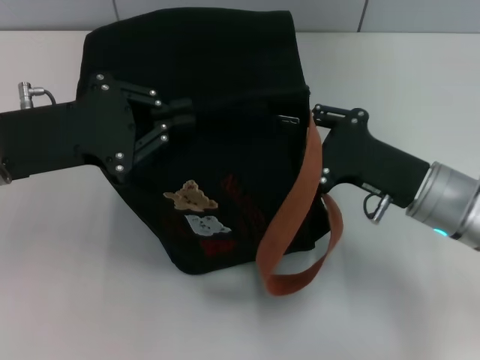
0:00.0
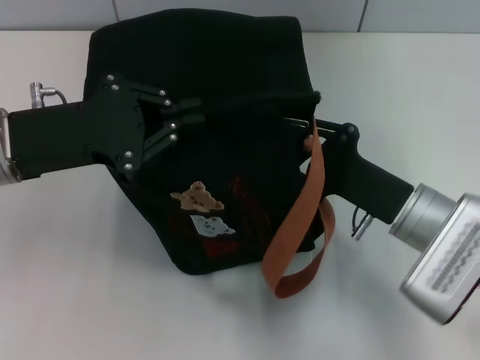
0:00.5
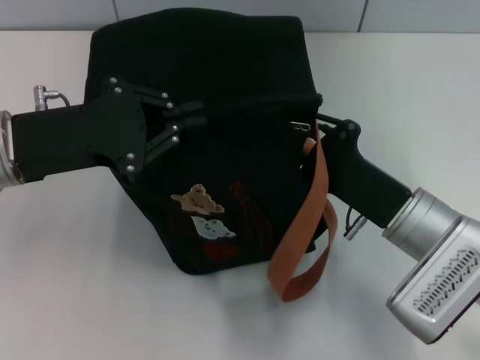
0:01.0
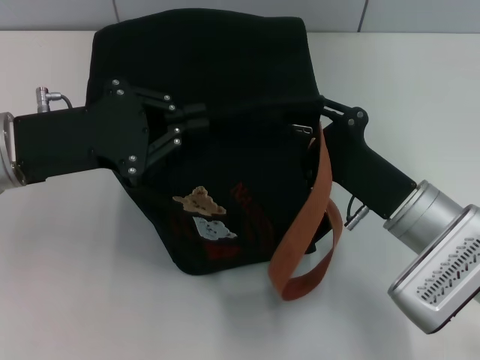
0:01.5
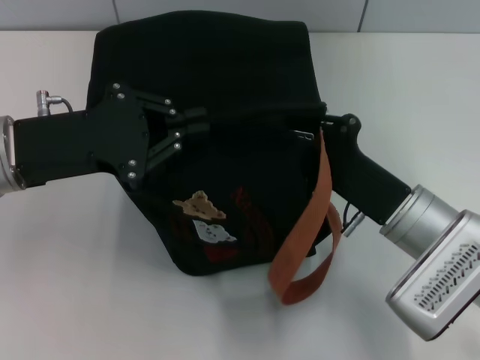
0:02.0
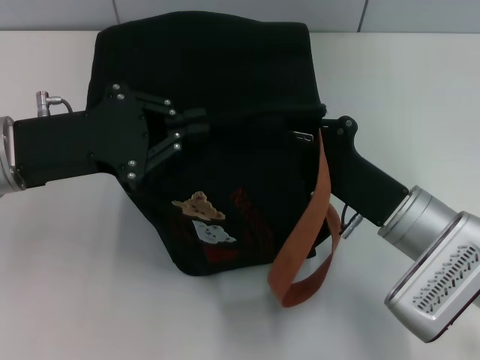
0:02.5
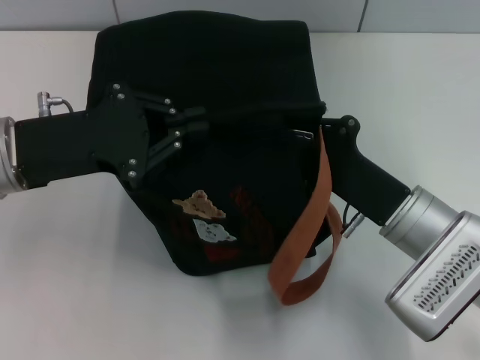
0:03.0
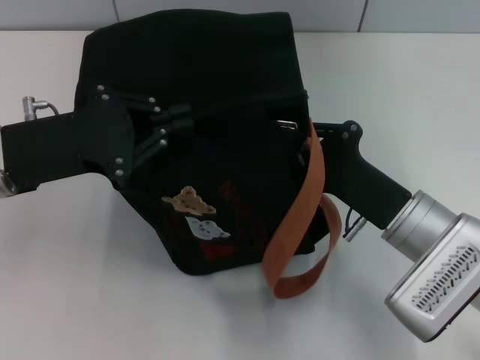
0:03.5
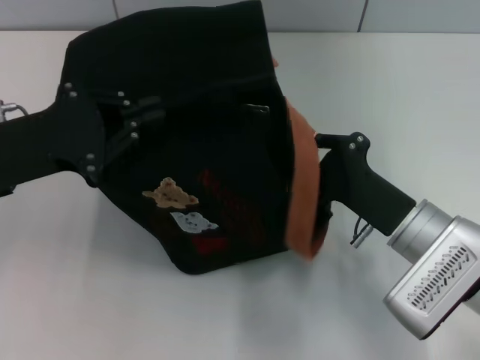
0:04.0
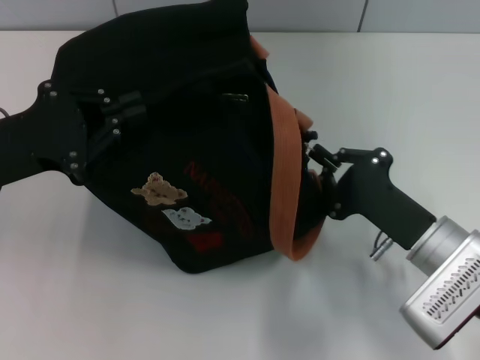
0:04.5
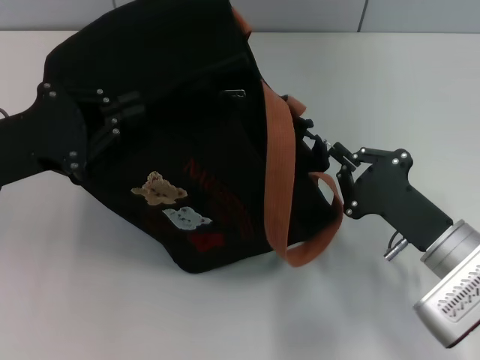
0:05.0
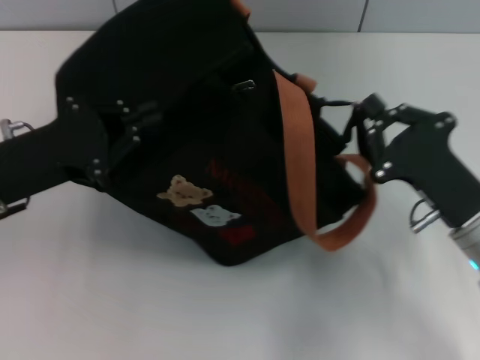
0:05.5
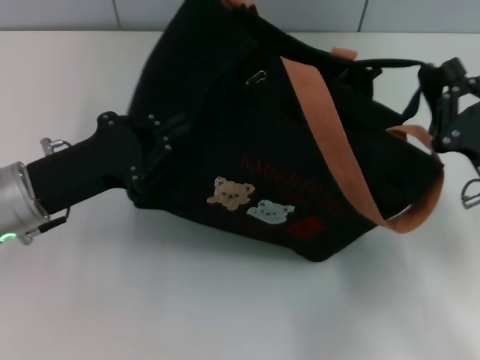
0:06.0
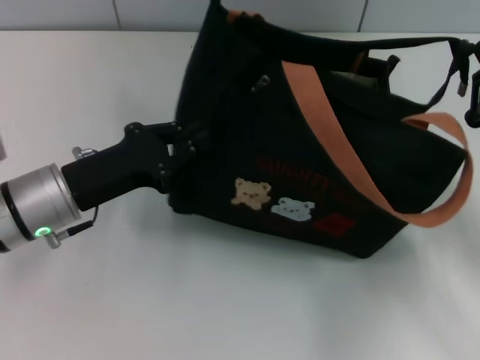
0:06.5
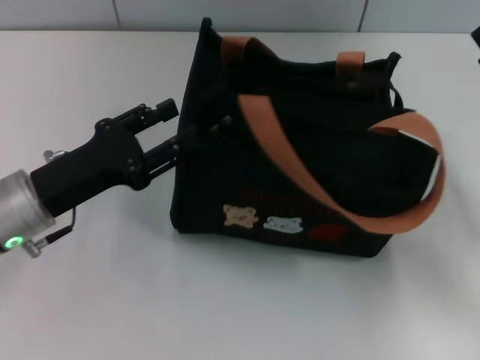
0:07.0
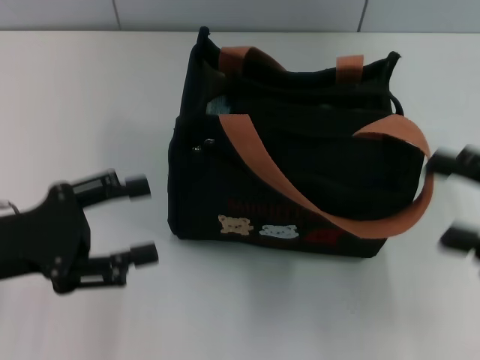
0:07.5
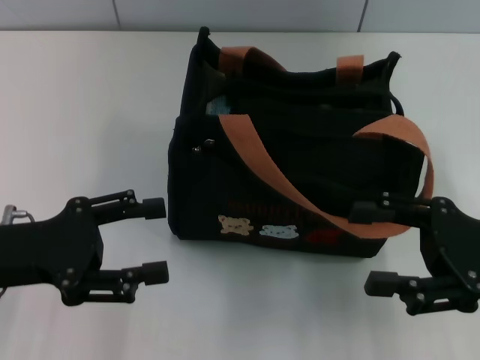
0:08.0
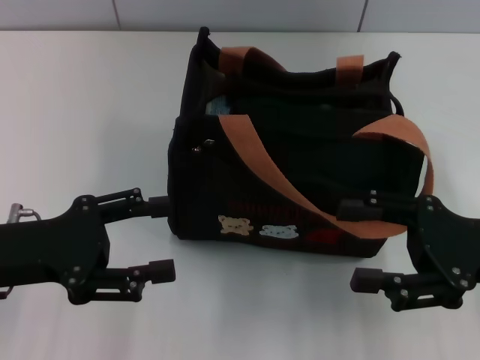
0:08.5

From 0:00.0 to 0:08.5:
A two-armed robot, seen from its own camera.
Step, from 0:00.0 to 0:06.5: Pull open the zipper with your right hand.
From 0:04.0 to 0:06.5: The left gripper heads downward, covering roughly 5 cm; the right gripper heads to the right, covering approximately 10 cm.
From 0:06.5 to 0:08.5: The left gripper heads backward and to the left, covering approximately 10 cm, and opens, while the right gripper opens.

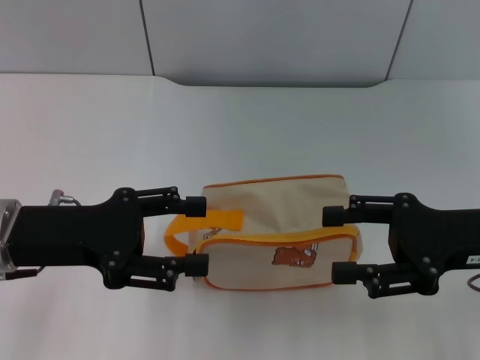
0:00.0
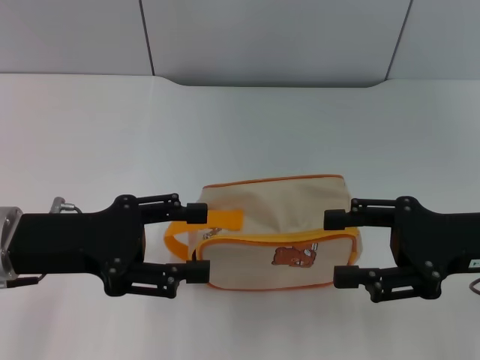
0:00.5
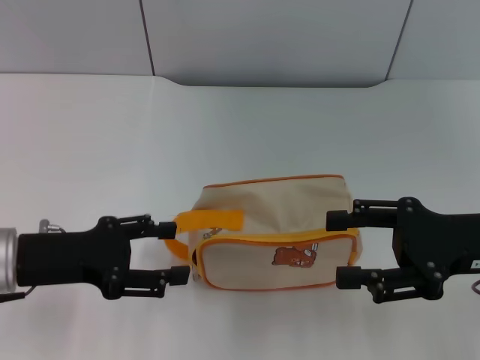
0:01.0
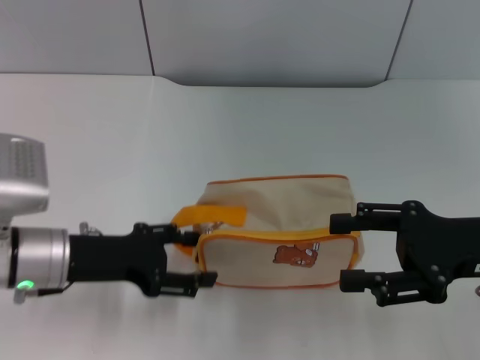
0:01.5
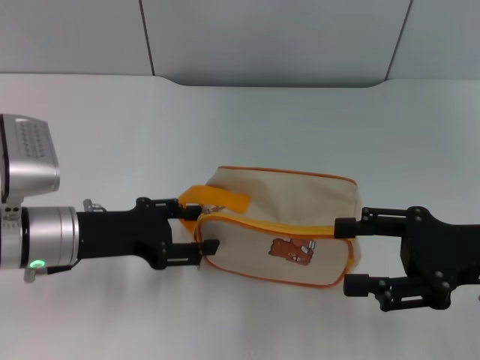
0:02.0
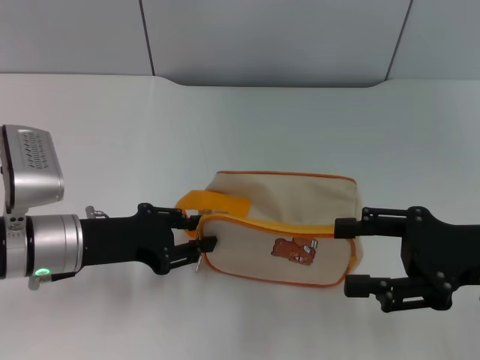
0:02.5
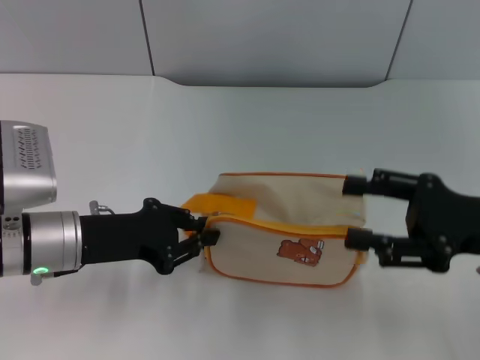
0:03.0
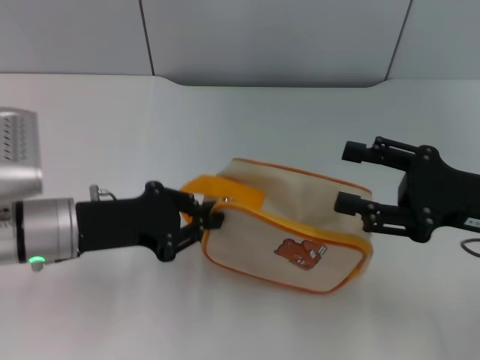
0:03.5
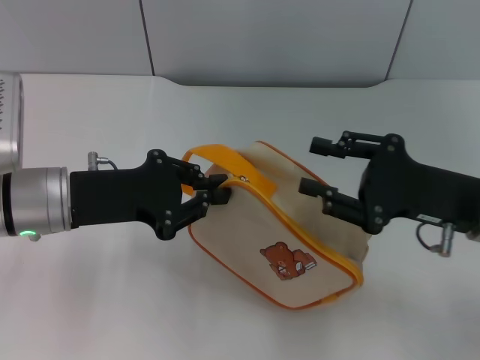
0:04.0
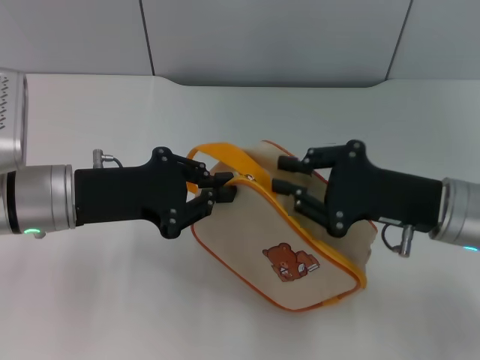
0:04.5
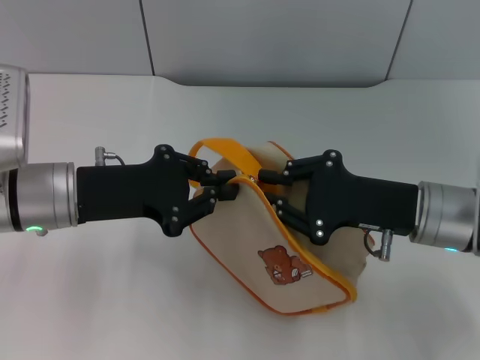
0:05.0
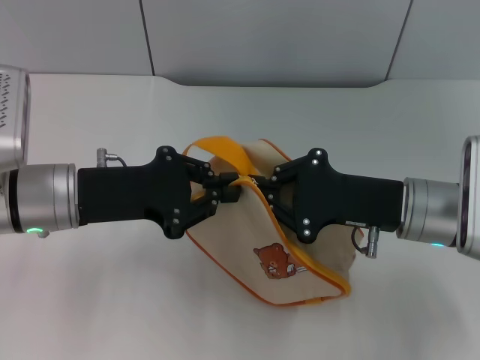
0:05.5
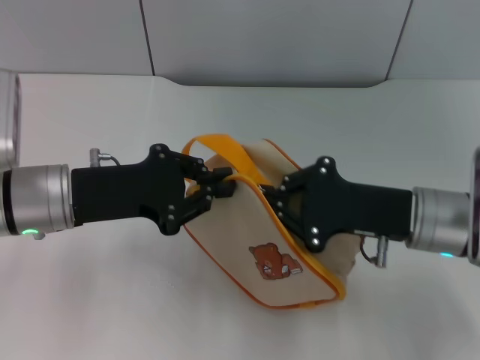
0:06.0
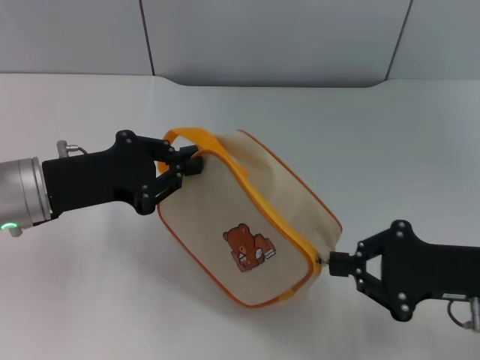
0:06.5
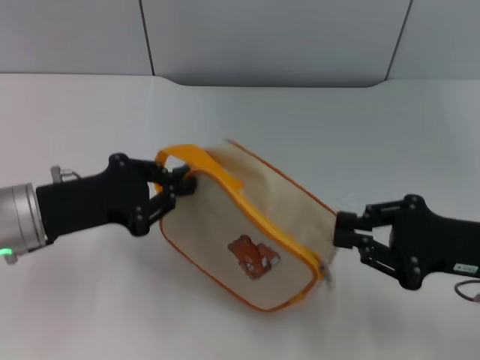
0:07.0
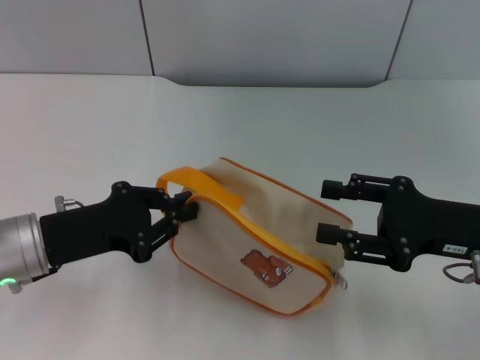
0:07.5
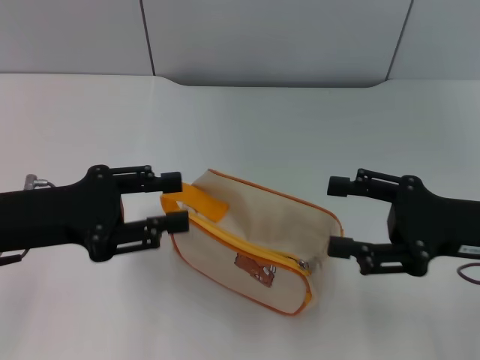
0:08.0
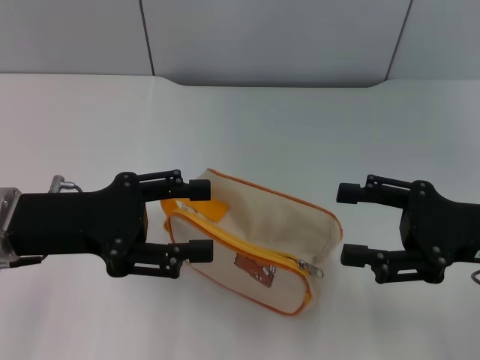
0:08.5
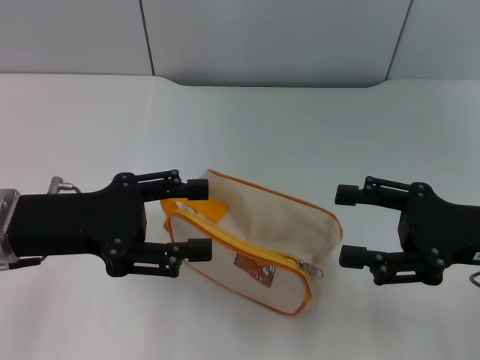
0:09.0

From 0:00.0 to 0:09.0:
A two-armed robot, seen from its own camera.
Step, from 0:00.0 to 0:03.5: Pick up the bag with left gripper.
Step, from 0:04.5 to 0:07.0: Unzip the zipper of bag with right gripper.
Step, from 0:07.5 to 0:08.0: Place the bag on the table with left gripper.
From 0:00.0 to 0:02.0: The left gripper is displaced downward by about 5 cm.
From 0:02.0 to 0:04.5: The left gripper closes. The right gripper is displaced to the left by about 5 cm, and closes up.
From 0:04.5 to 0:07.0: The right gripper shifts about 5 cm to the right.
From 0:07.0 to 0:09.0: The right gripper opens its fingers. Meanwhile the left gripper opens.

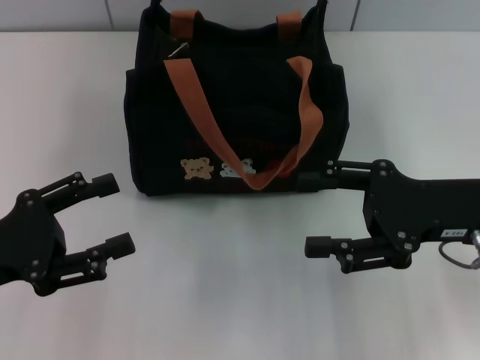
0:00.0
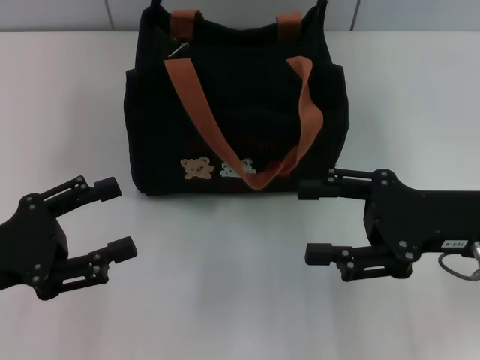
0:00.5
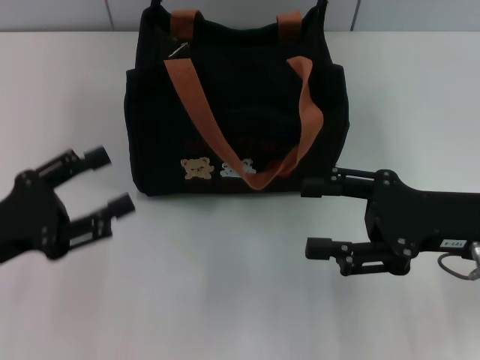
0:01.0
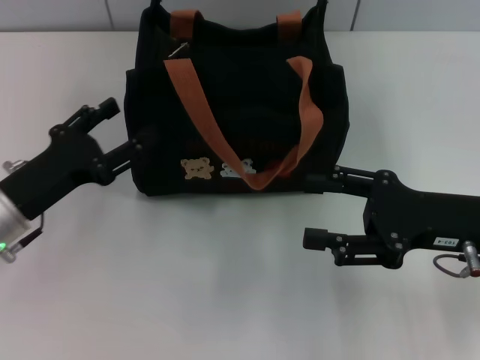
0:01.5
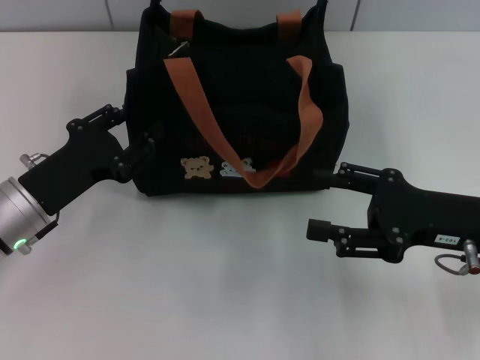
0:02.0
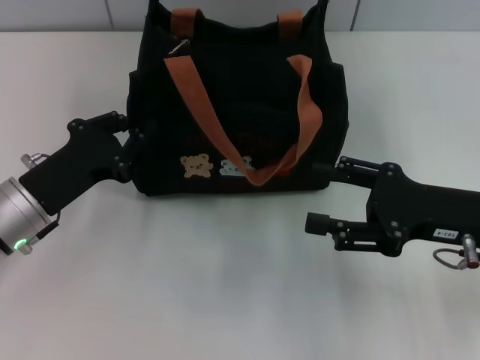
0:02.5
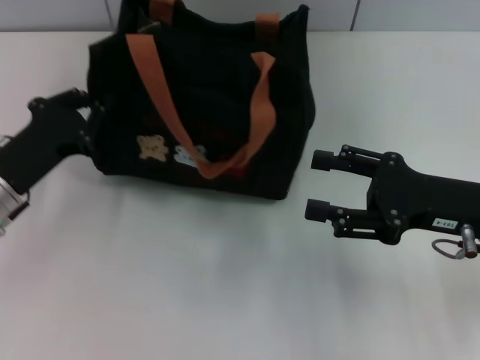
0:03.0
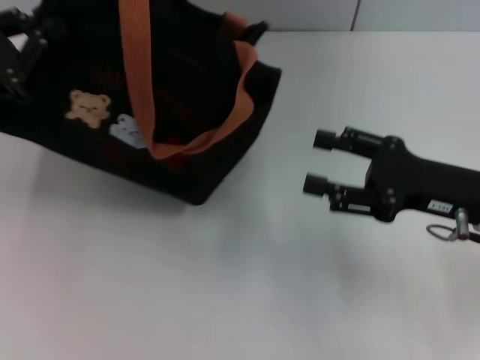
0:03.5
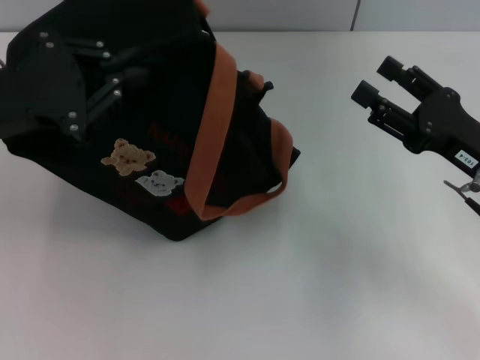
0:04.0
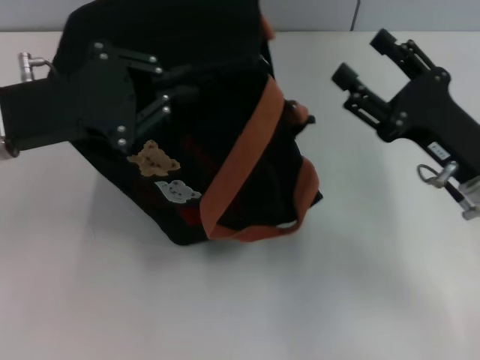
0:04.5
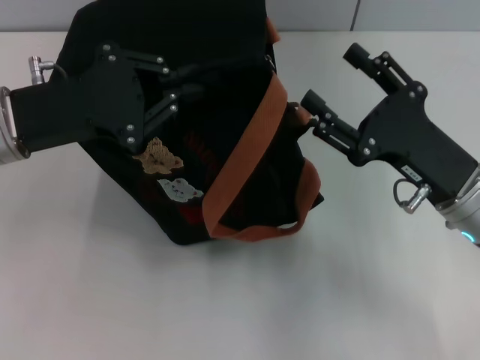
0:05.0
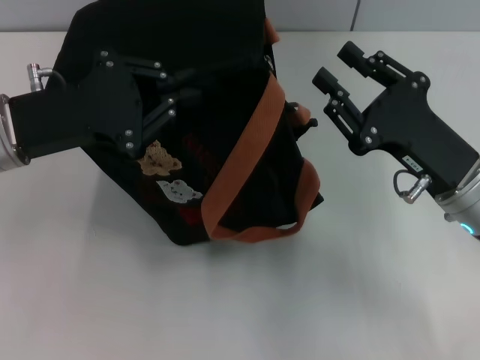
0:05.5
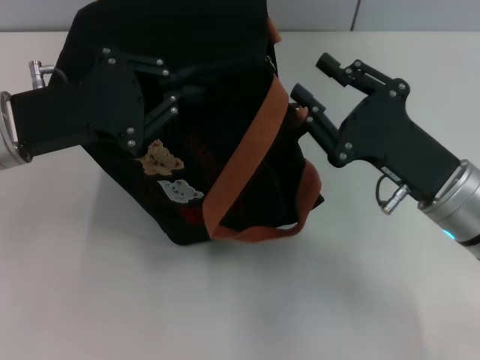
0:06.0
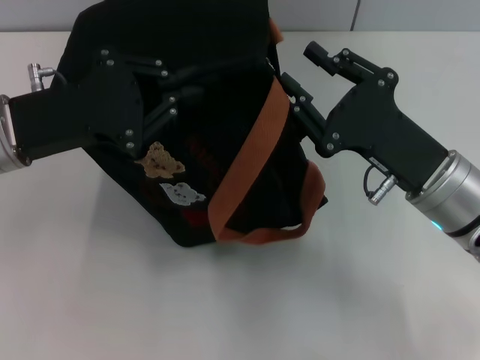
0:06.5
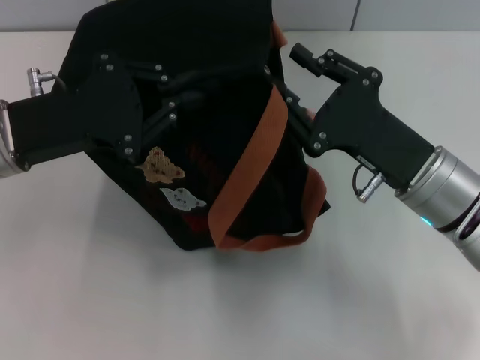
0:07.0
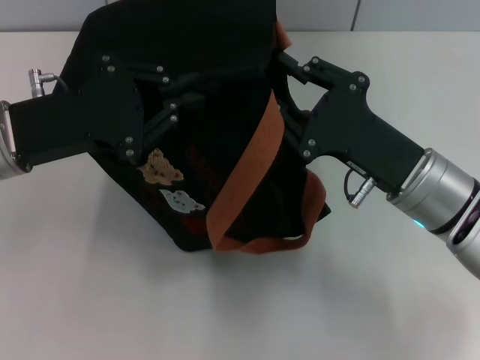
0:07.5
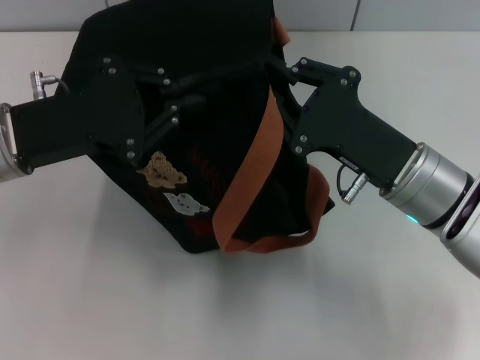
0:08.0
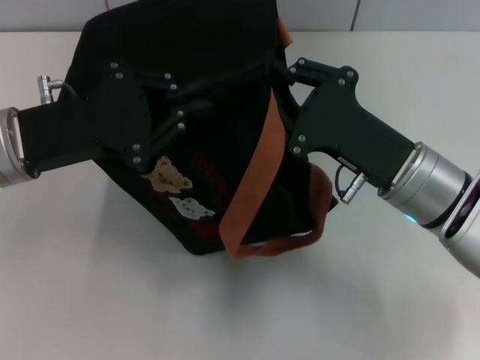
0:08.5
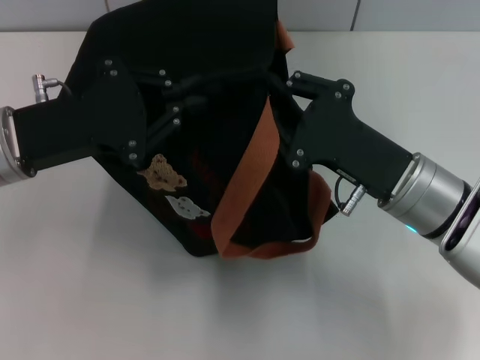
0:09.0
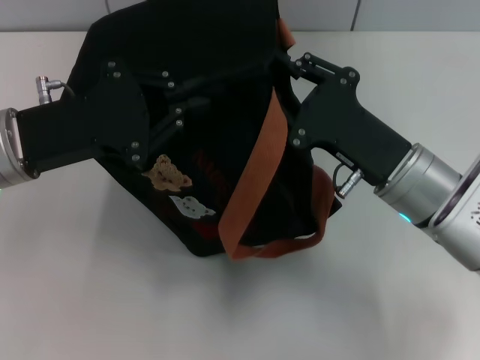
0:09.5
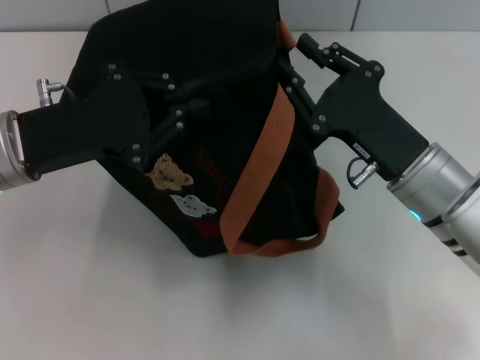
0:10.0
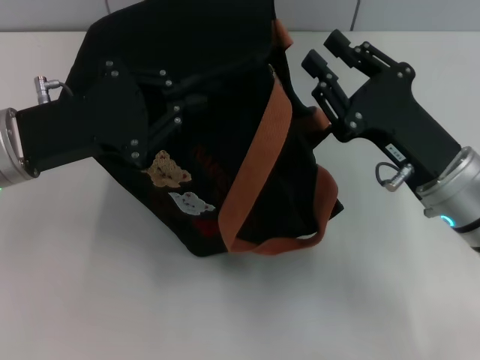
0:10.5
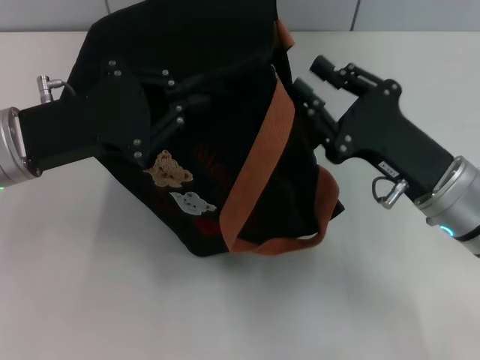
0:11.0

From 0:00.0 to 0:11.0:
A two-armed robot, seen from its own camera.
From 0:00.0 to 0:02.0: The left gripper heads forward and to the right, covering some 10 cm.
From 0:02.0 to 0:03.5: The left gripper moves upward and to the left, approximately 10 cm, and closes.
From 0:03.5 to 0:05.5: The left gripper travels to the right by roughly 5 cm.
From 0:07.5 to 0:09.0: Both grippers stay put.
From 0:09.0 to 0:11.0: There are only small adjustments of the grippers.
